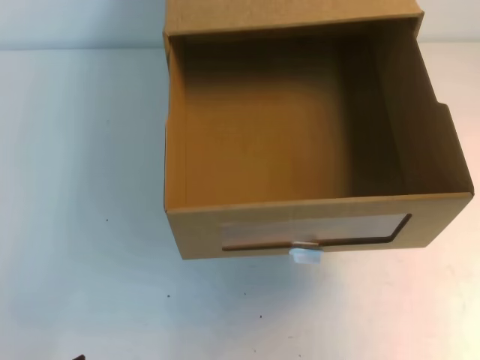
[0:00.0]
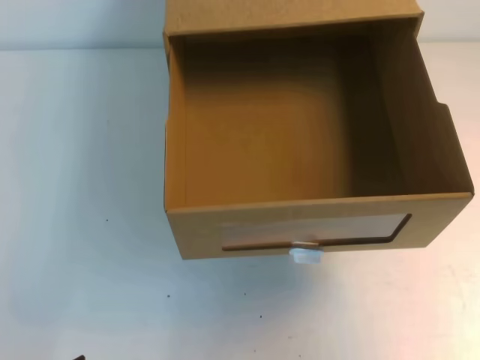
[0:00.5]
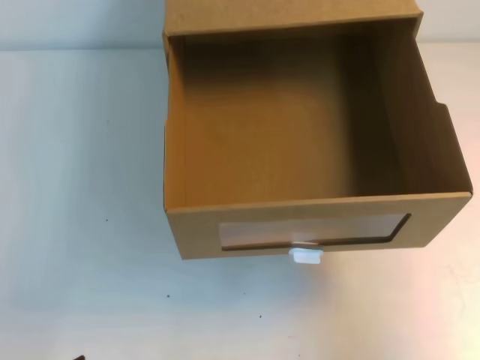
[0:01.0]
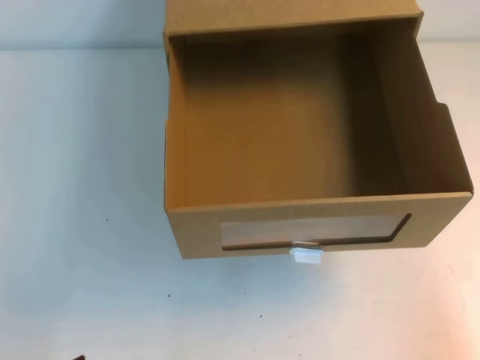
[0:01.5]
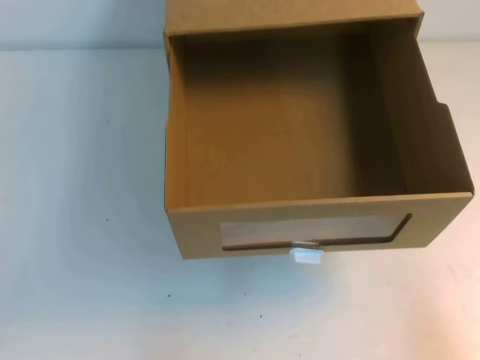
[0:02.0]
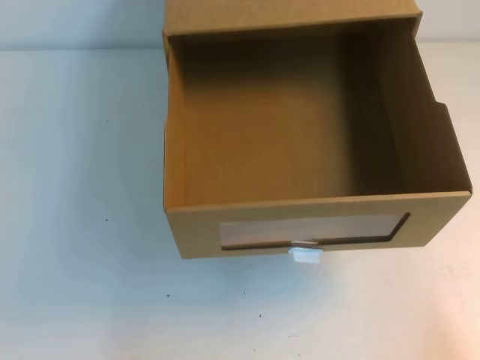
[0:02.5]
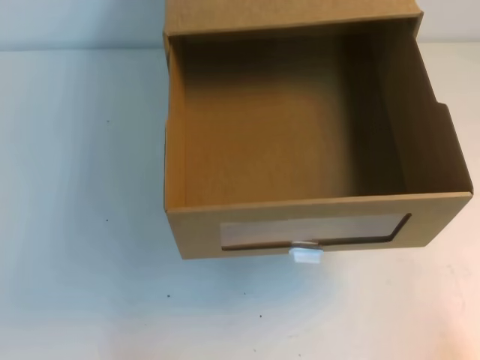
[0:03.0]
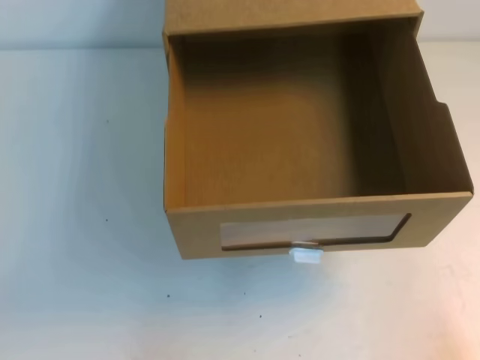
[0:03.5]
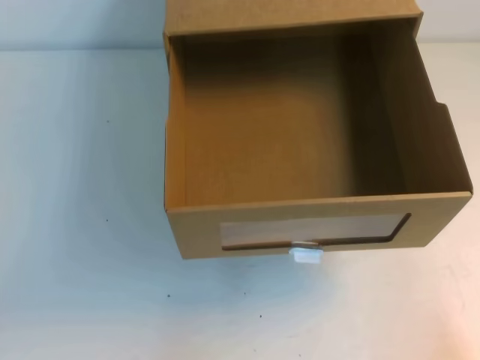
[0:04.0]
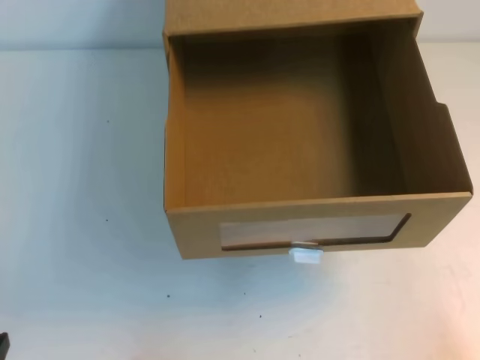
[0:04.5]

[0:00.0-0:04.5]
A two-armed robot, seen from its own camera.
Task of the whole recording: open the shoebox on the table.
Step, 0:00.0 to 0:04.5: Open the shoe box.
0:00.0 to 0:02.0: The right gripper moves downward and backward, roughly 25 cm.

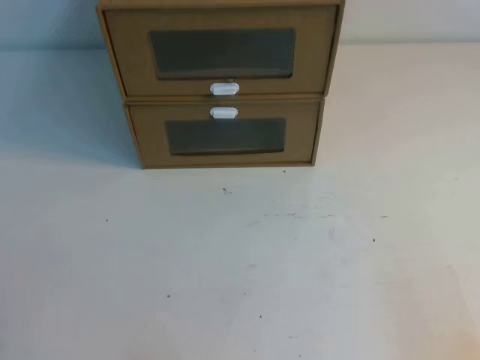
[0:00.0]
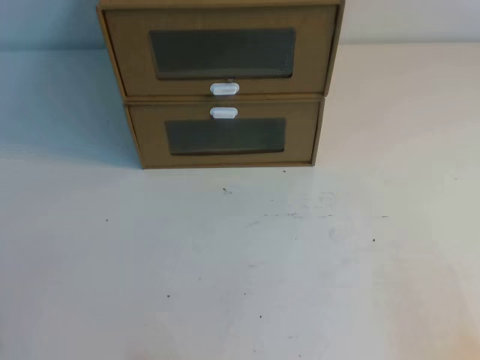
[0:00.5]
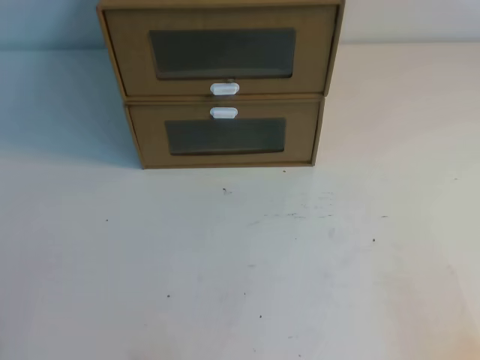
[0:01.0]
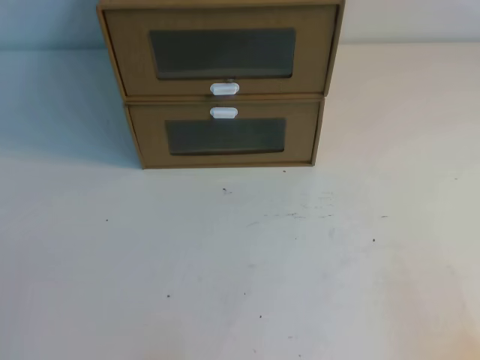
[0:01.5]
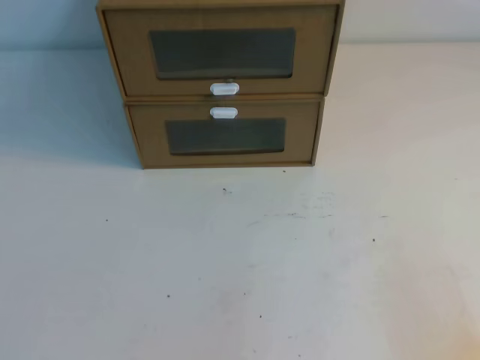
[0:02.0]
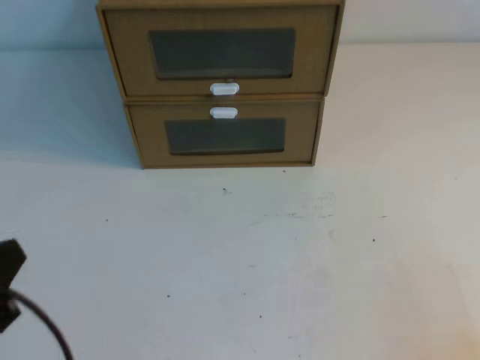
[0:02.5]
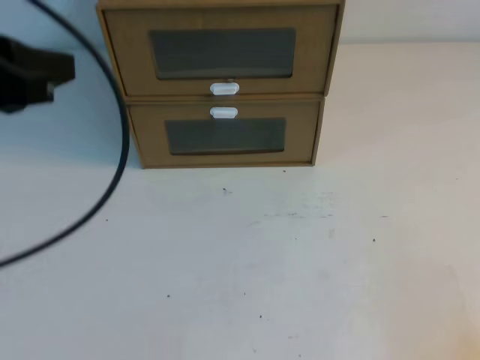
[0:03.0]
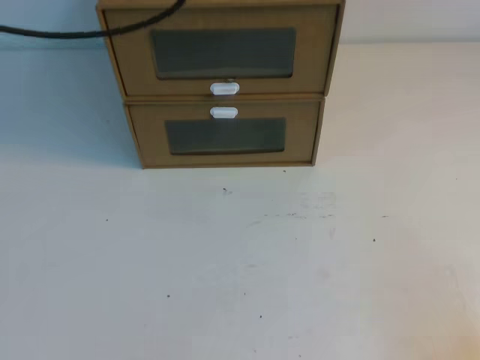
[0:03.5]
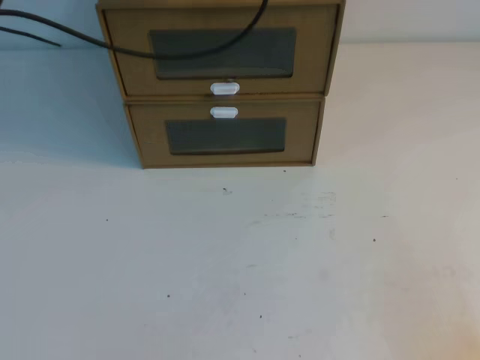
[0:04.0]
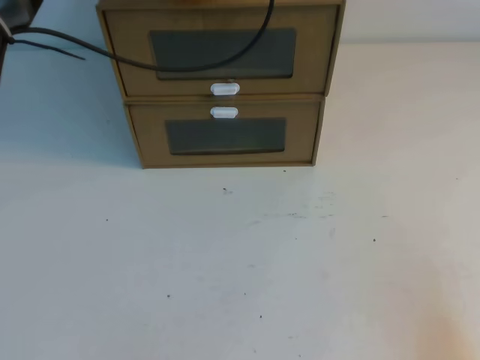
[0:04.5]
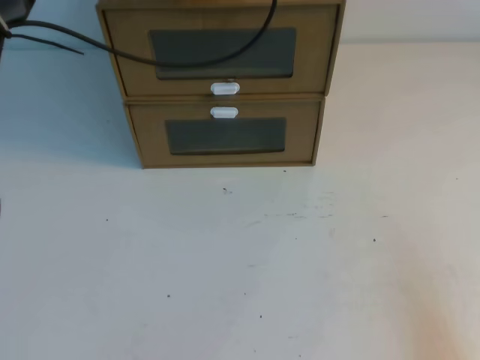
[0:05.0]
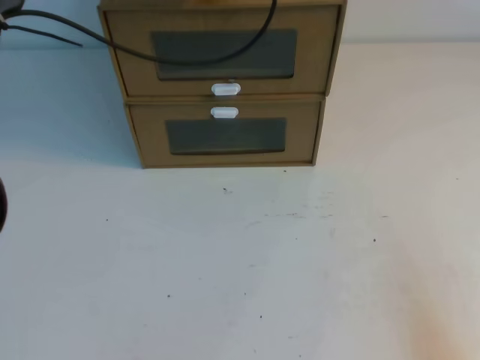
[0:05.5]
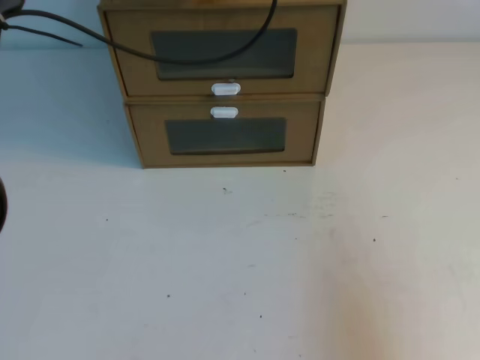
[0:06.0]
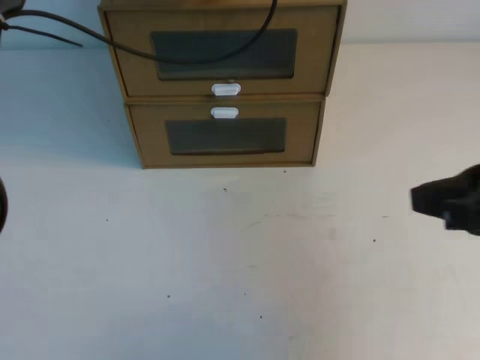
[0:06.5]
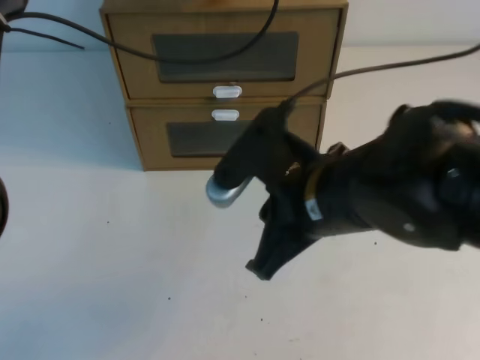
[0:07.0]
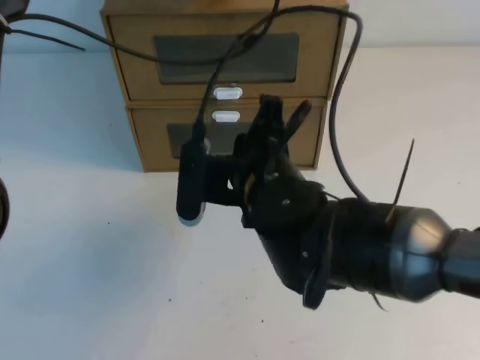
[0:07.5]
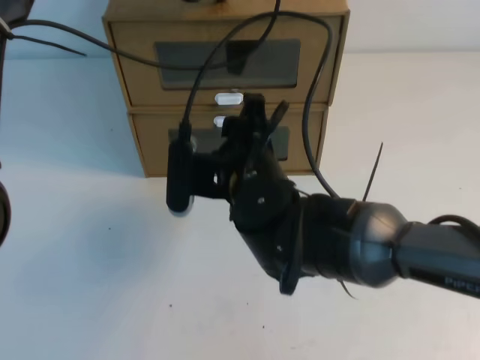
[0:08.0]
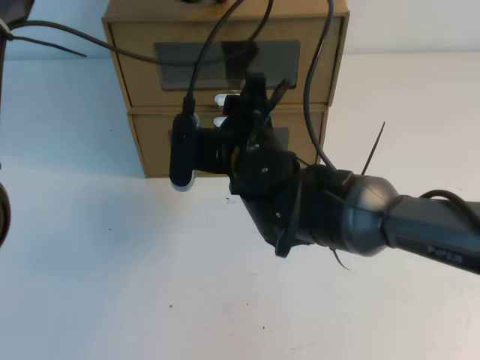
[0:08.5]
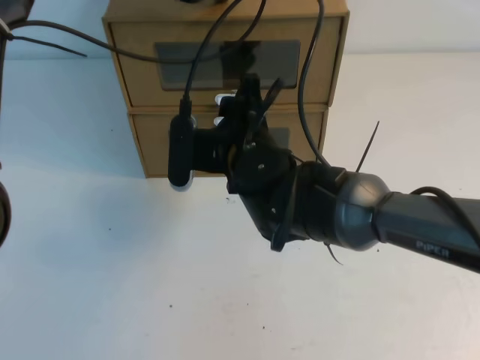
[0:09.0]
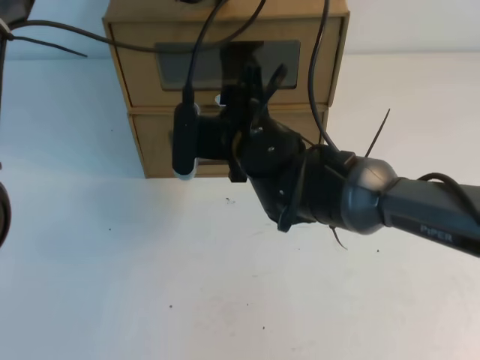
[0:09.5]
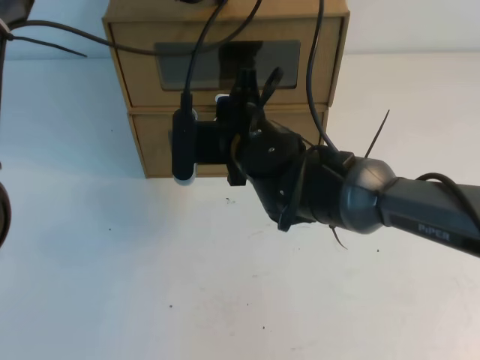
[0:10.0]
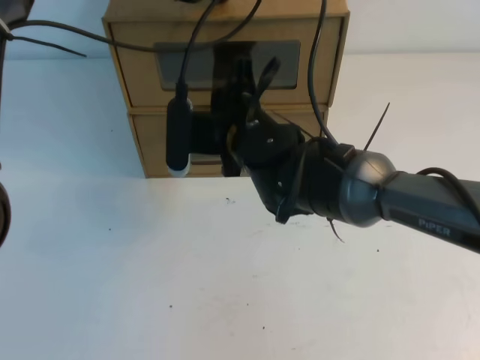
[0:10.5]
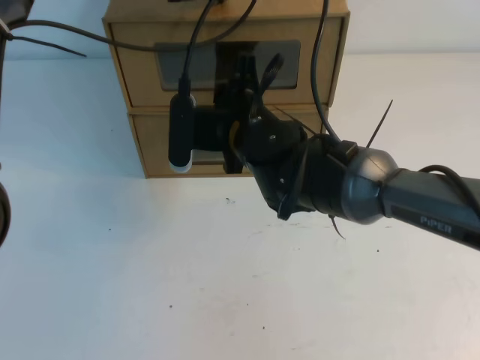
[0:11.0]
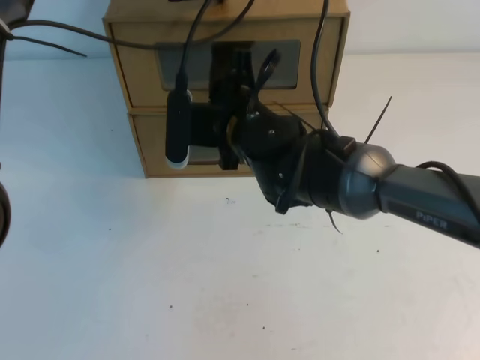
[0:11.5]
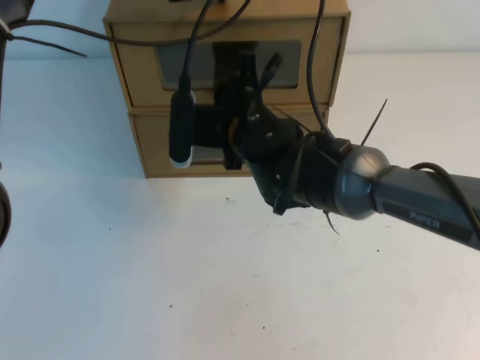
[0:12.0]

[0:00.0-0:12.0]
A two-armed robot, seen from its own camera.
Task of the whole recording: open the shoebox on the table.
0:02.0 to 0:04.0: The left gripper heads forward, upward and to the right, covering approximately 50 cm.
0:04.0 to 0:06.0: The right gripper shifts about 10 cm upward.
0:06.0 to 0:08.0: The right gripper goes about 35 cm to the left and forward, and opens.
0:08.0 to 0:10.0: The right gripper moves forward, roughly 5 cm.
0:10.0 to 0:12.0: There are only small adjustments of the grippers.

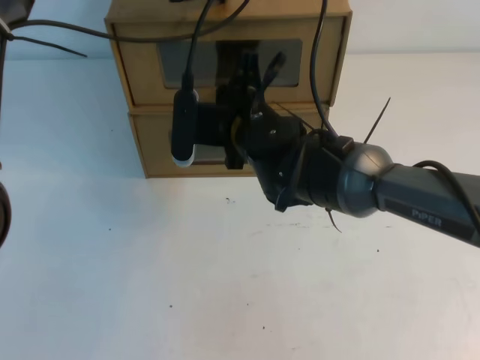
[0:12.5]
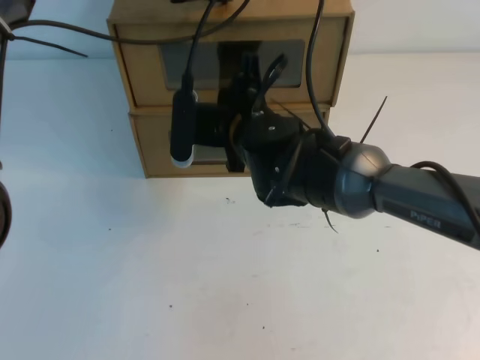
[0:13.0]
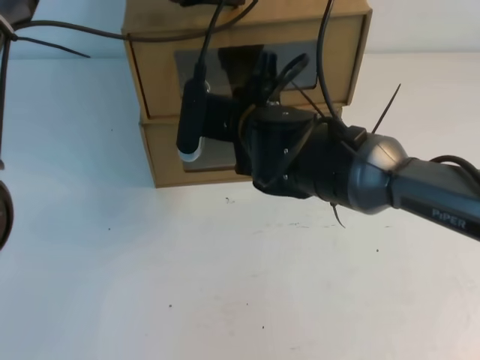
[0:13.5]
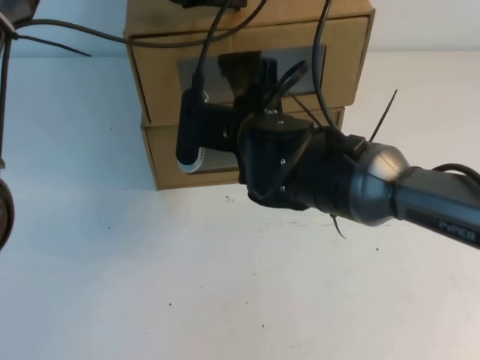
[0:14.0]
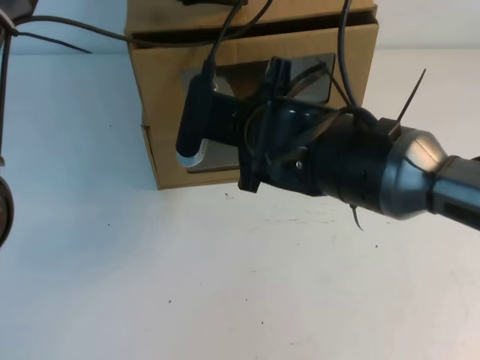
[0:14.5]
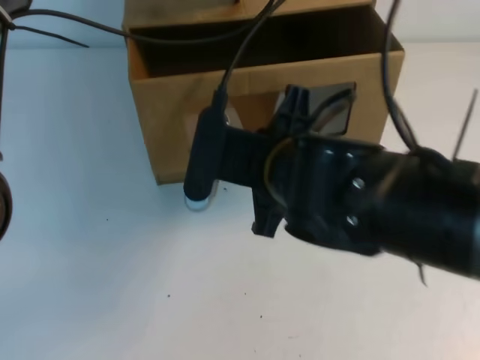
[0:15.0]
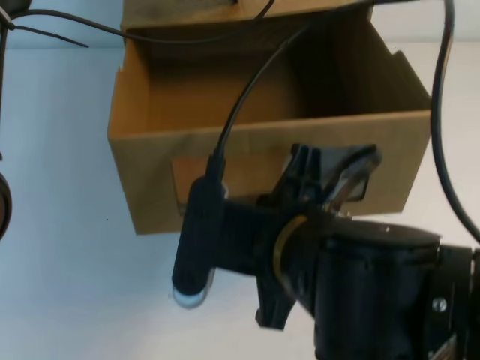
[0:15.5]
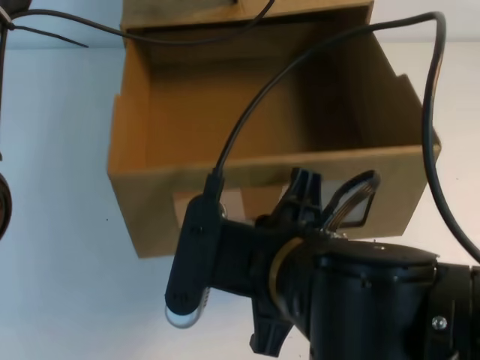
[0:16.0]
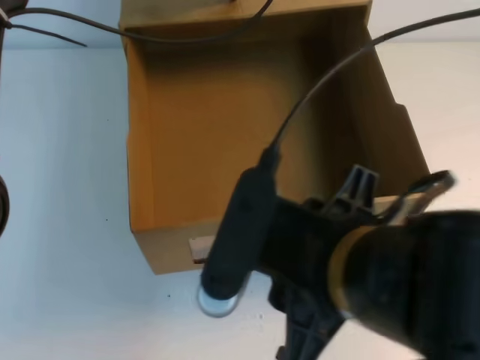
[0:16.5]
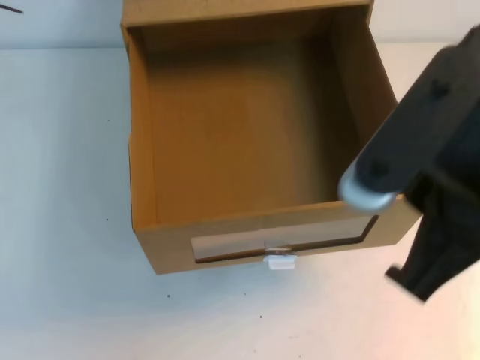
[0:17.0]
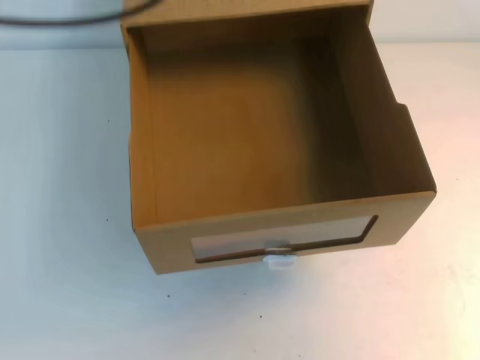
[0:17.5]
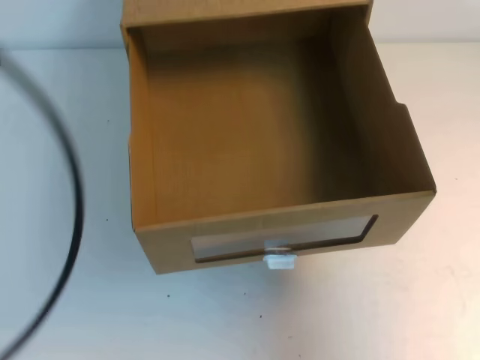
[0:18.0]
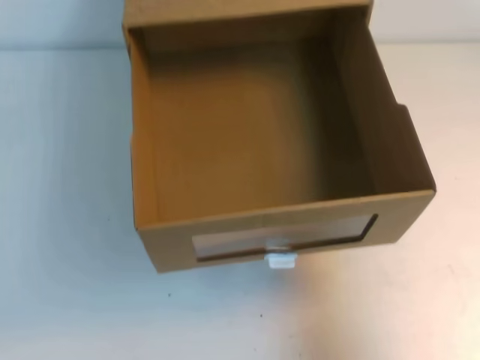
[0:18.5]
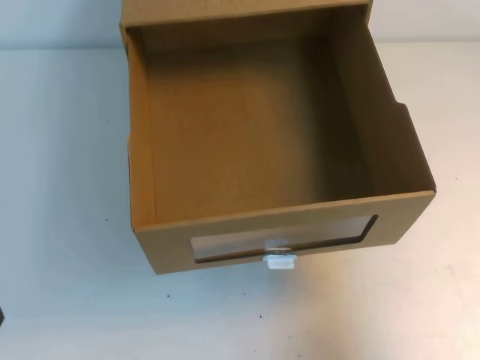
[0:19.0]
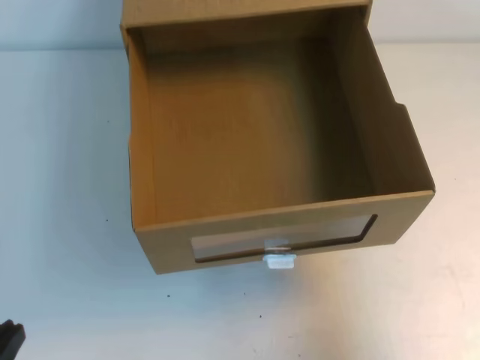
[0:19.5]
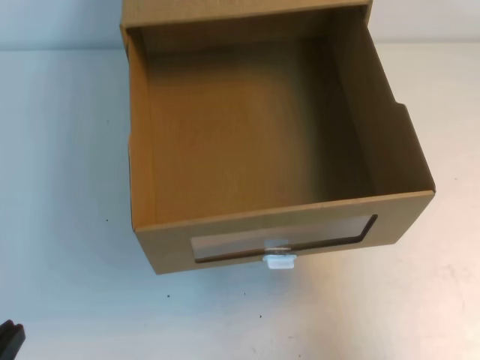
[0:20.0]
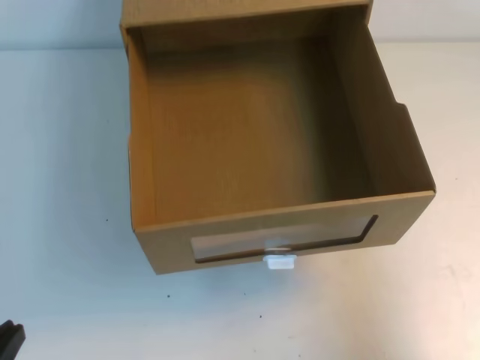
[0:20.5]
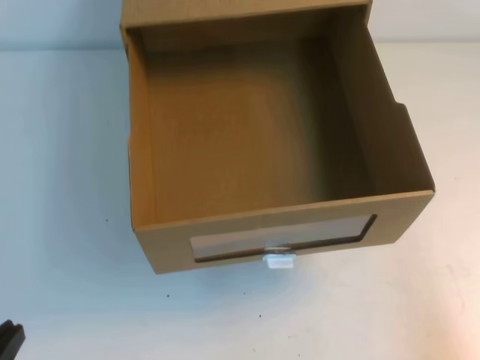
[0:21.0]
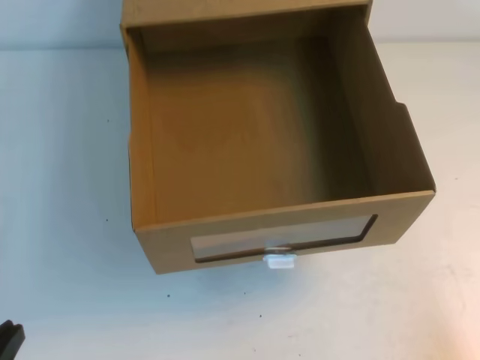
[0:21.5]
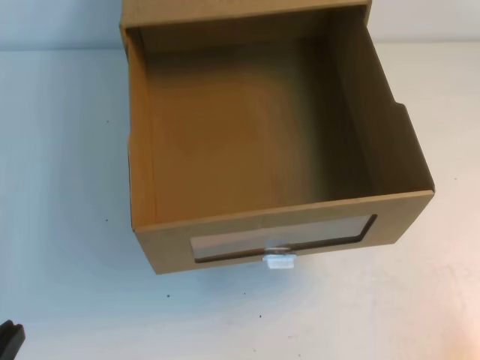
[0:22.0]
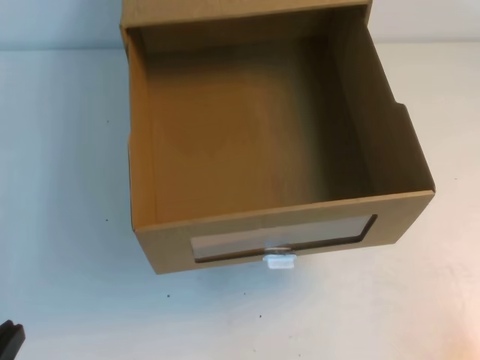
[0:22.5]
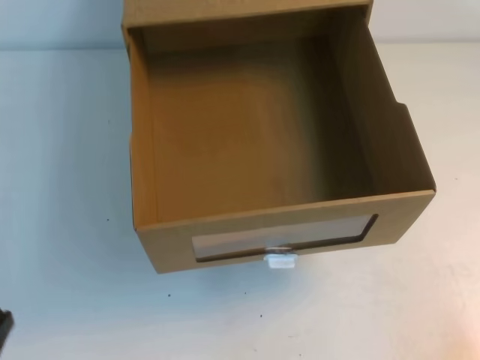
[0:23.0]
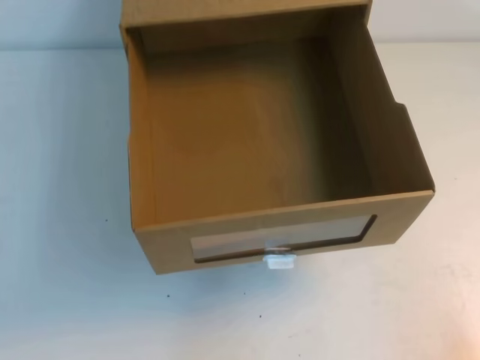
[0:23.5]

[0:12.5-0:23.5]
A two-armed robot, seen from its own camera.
Task of the whole recording: open the shoebox on the table.
Step, 0:12.5 to 0:23.5: Open the shoe box.
0:12.5 to 0:14.5: The right gripper shifts approximately 5 cm backward.
0:14.5 to 0:16.0: The right gripper goes approximately 20 cm backward.
0:16.0 to 0:18.0: The right gripper goes about 25 cm to the right, and opens, then closes once more. The left gripper heads backward and to the left, covering approximately 30 cm.
0:18.0 to 0:20.0: The right gripper moves backward and downward, some 10 cm. Meanwhile the left gripper is displaced downward and backward by approximately 30 cm.
0:20.0 to 0:21.5: The right gripper heads downward and backward, covering roughly 20 cm.
